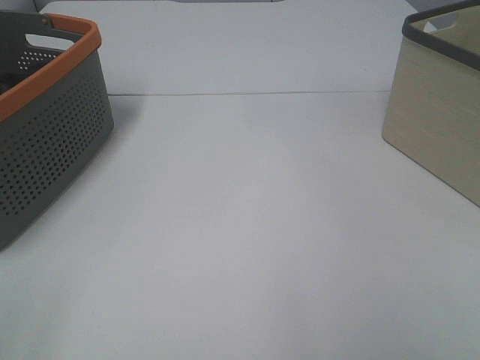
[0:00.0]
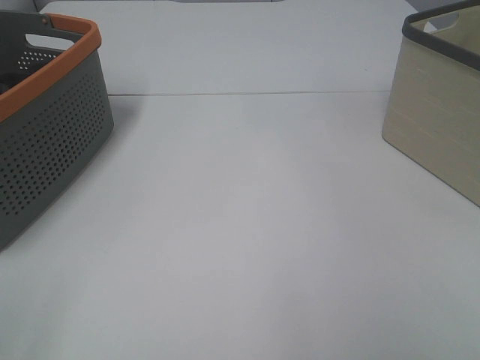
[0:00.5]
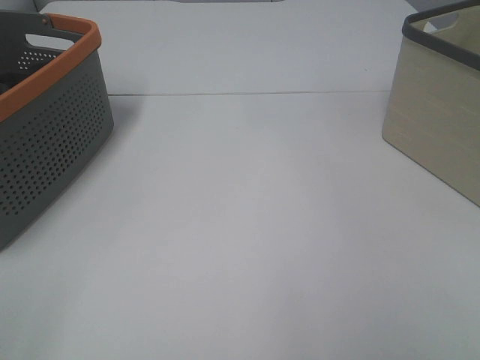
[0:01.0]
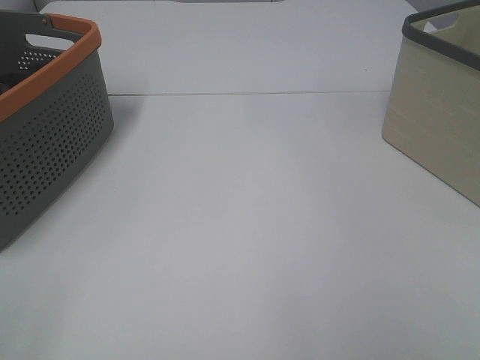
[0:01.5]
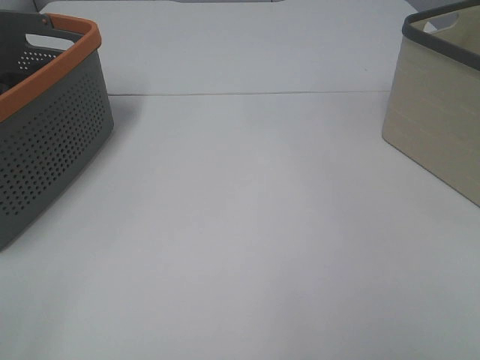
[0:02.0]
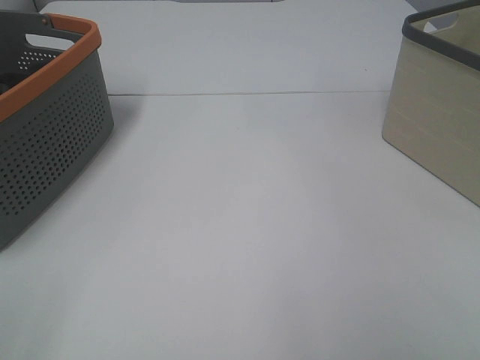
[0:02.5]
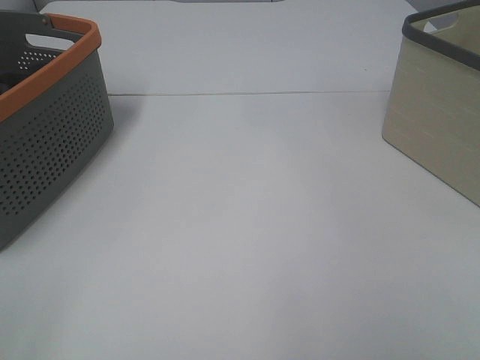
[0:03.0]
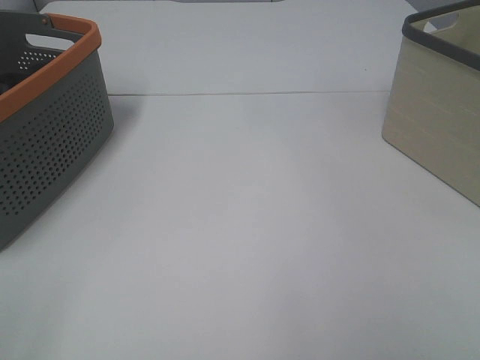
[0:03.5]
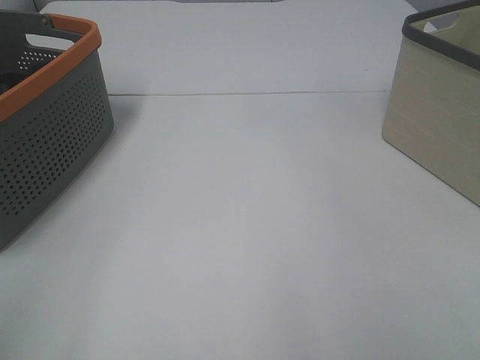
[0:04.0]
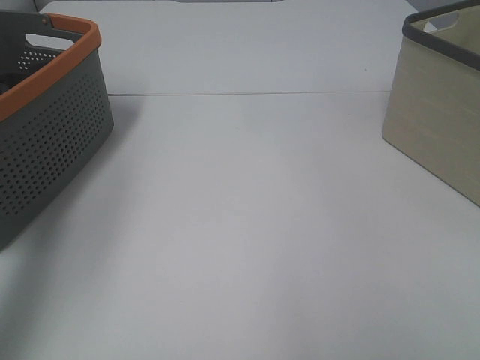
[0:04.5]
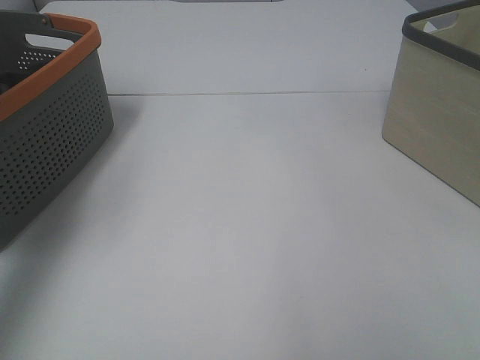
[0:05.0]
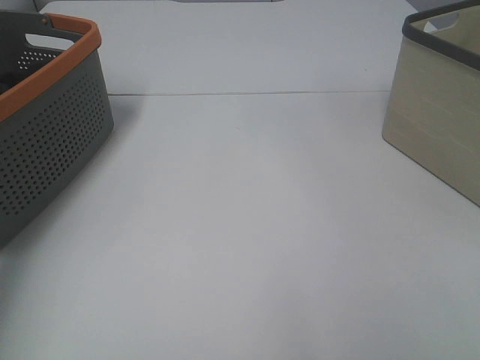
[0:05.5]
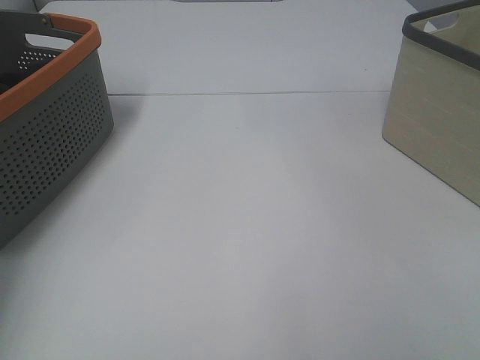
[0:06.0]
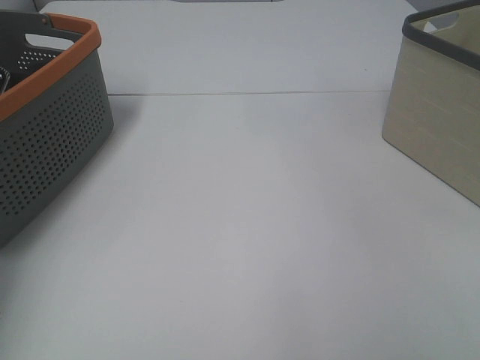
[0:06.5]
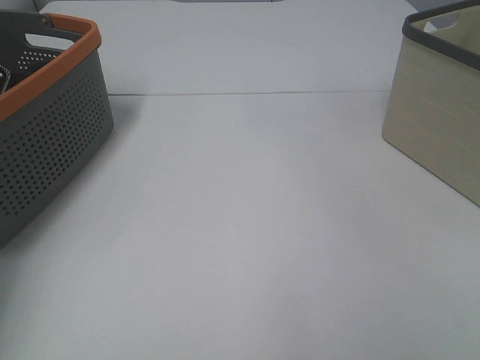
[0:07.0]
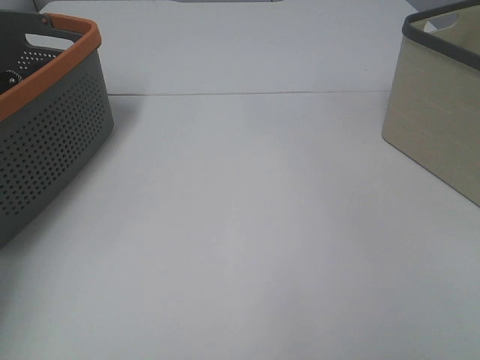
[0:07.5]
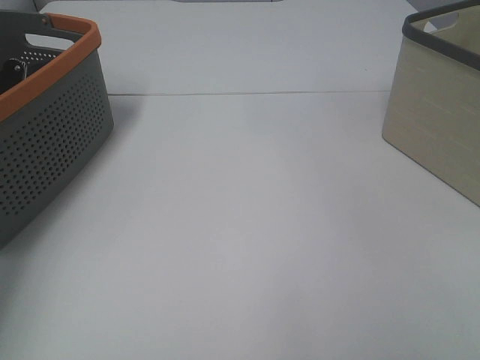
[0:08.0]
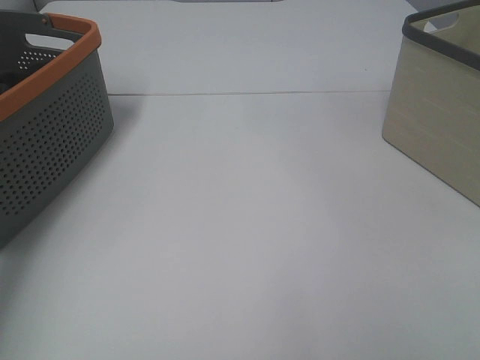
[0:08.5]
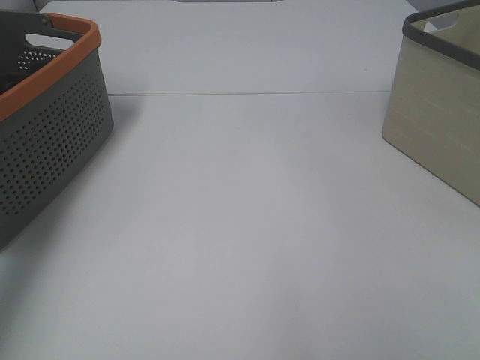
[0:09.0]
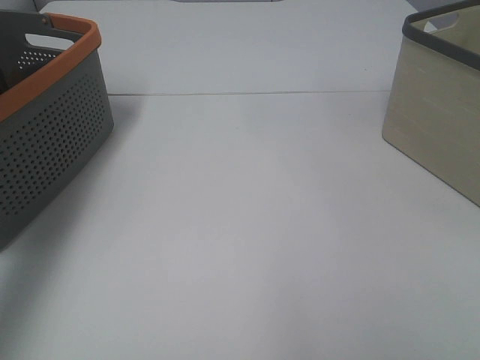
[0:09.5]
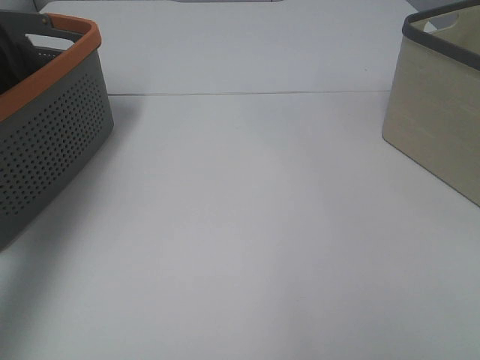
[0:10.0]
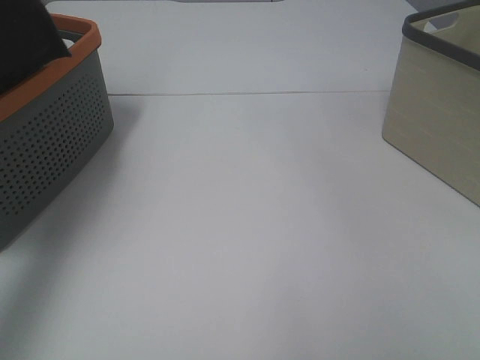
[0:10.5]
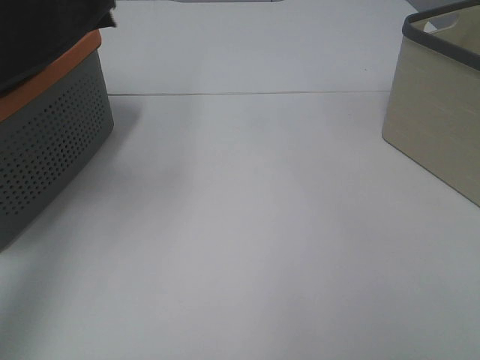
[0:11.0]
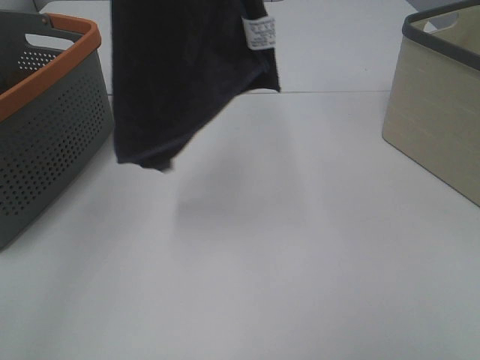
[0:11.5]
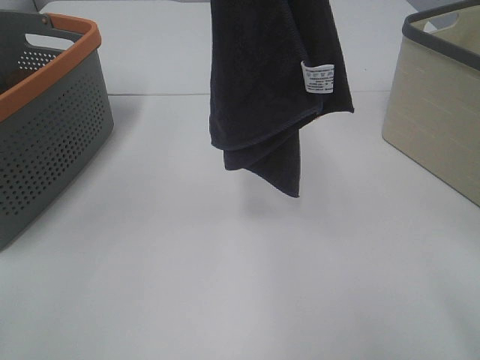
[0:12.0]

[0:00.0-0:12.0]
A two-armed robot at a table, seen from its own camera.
Task of the whole recording: Remove the towel and place it.
0:00.0 to 0:02.0: Both grippers stay put.
0:04.0 to 0:06.0: The left gripper shifts about 40 cm forward.
0:08.0 to 0:10.0: The left gripper goes approximately 30 cm upward.
0:10.0 to 0:12.0: The left gripper goes approximately 20 cm to the right. The right gripper moves forward, about 10 cm.

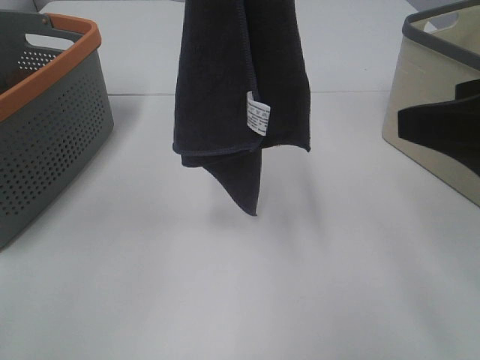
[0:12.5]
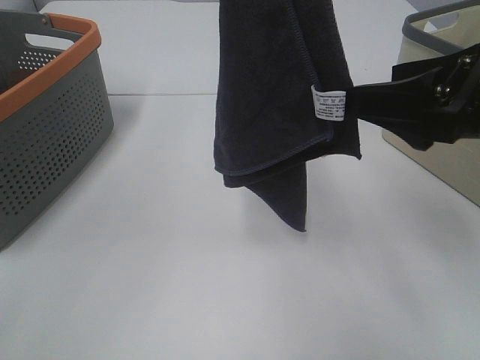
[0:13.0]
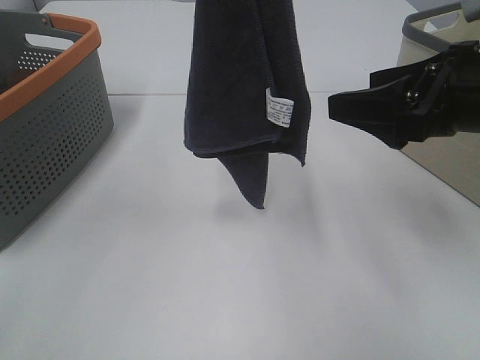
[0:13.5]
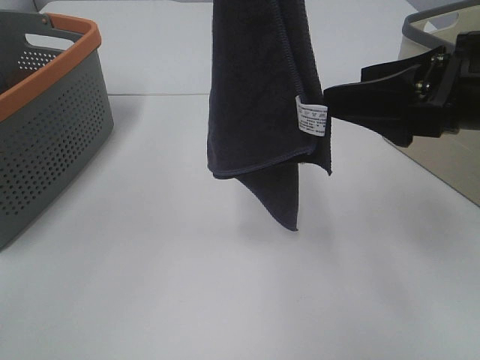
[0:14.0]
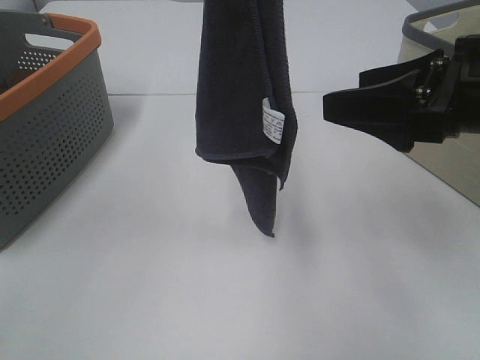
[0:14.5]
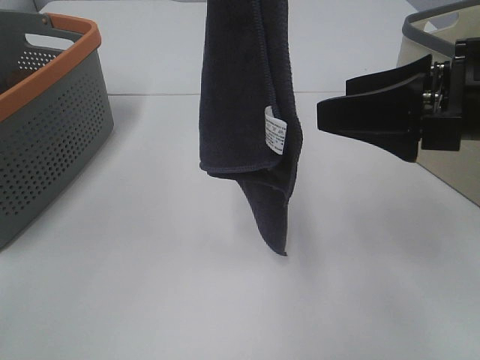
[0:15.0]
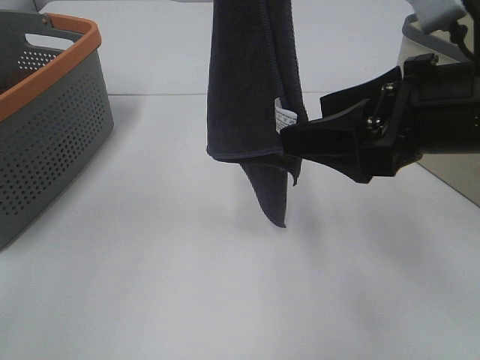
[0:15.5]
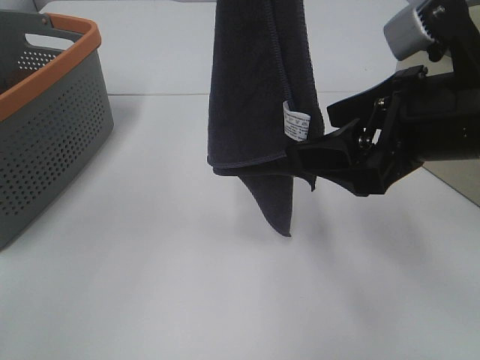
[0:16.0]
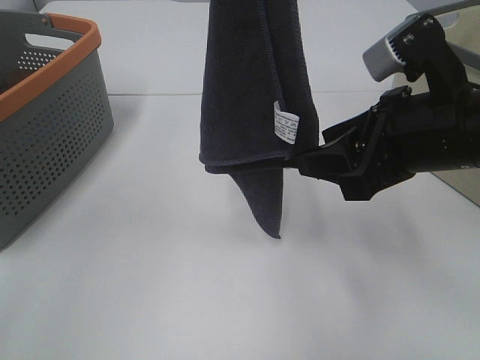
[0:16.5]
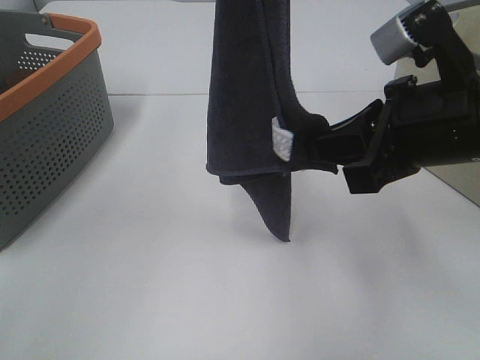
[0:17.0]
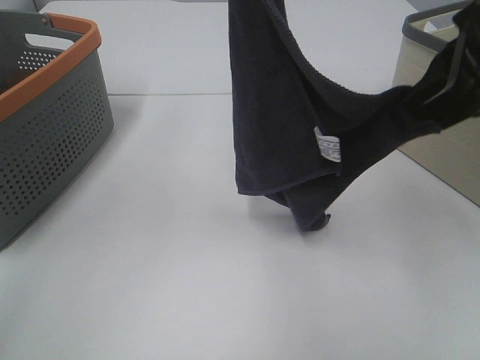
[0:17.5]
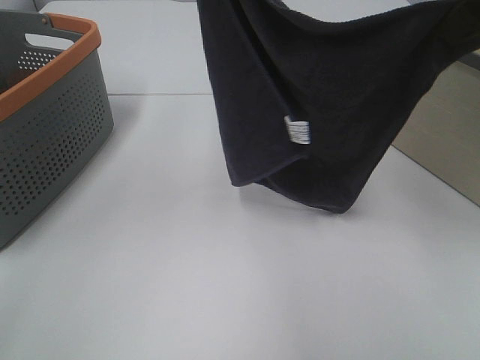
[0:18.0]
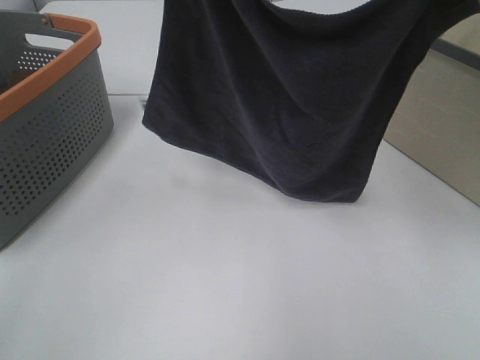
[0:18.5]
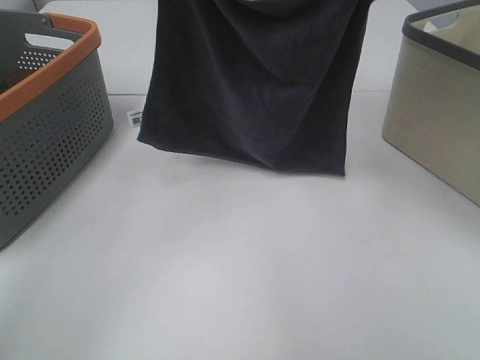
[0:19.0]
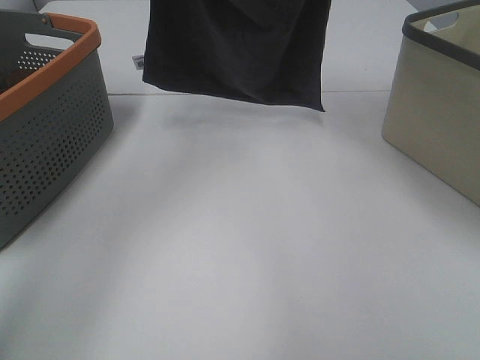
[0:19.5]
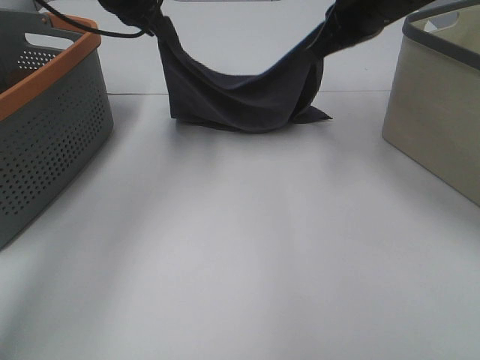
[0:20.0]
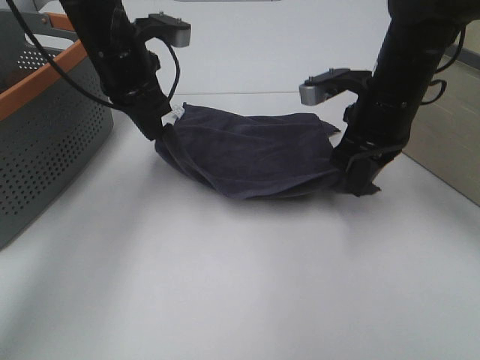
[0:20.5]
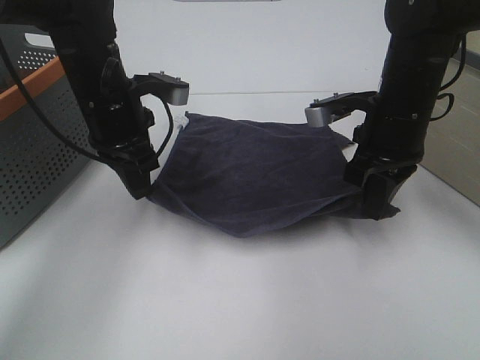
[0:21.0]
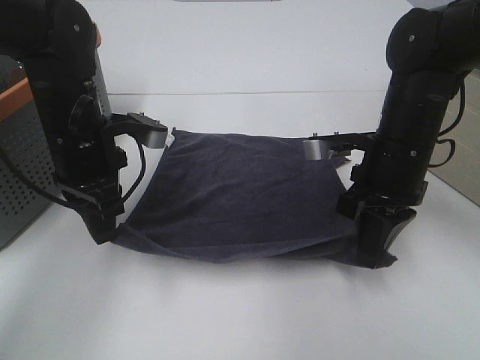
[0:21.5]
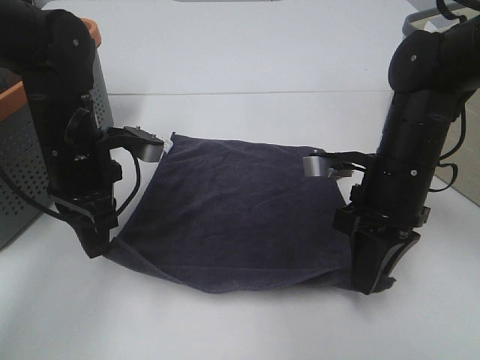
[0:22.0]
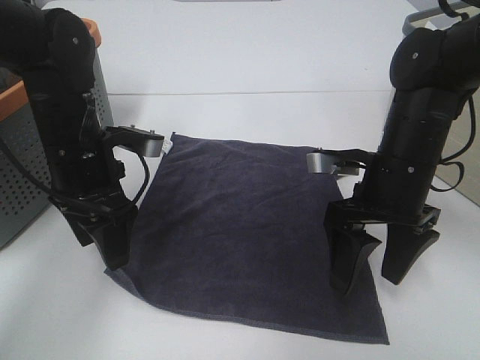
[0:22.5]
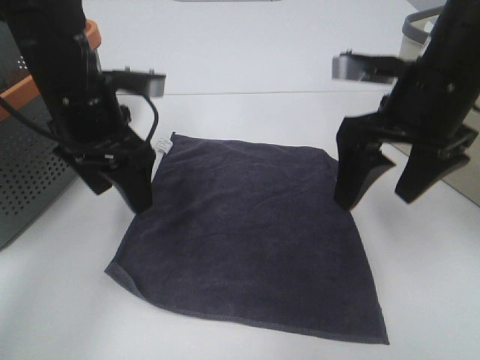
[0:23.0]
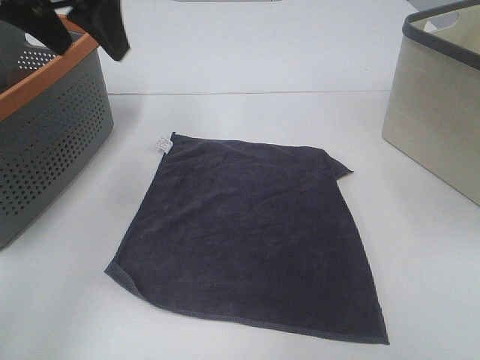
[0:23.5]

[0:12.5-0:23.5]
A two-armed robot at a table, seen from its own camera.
Task of the whole recording: Remove the towel and place it.
Step, 0:12.5 to 0:15.0: Right hand: grab a corner of the grey towel and straighten it.
Step, 0:15.5 to 0:17.5: Right hand: spread the grey towel flat on the table.
Step, 0:15.5 to 0:18.0: Left hand: spread the grey towel flat on the table.
0:12.5 to 0:14.5: The right gripper is displaced forward by about 5 cm.
0:14.5 to 0:16.0: There are only small adjustments of the grippers.
0:16.0 to 0:18.0: The right gripper moves upward, approximately 15 cm, and closes. The left gripper shifts by roughly 5 cm.
0:18.0 to 0:20.0: The left gripper moves downward and forward, some 20 cm, while the right gripper travels forward and downward by about 20 cm.
0:20.0 to 0:21.5: The two grippers go roughly 15 cm downward and backward.
0:21.5 to 0:23.5: The two grippers go about 25 cm upward. The left gripper opens its fingers; the right gripper opens its fingers.

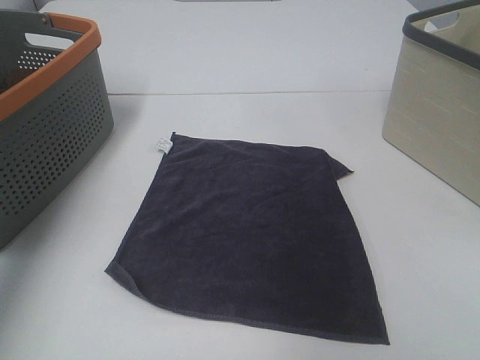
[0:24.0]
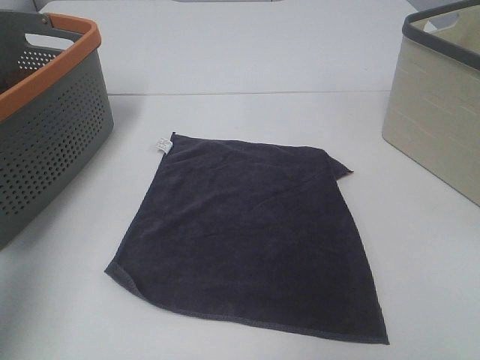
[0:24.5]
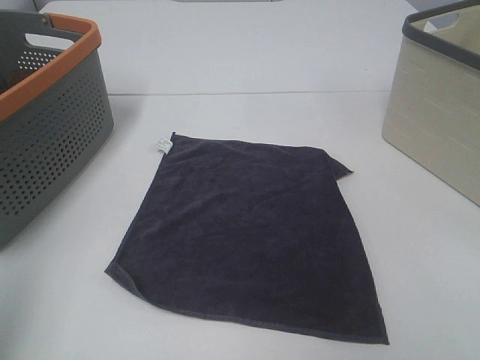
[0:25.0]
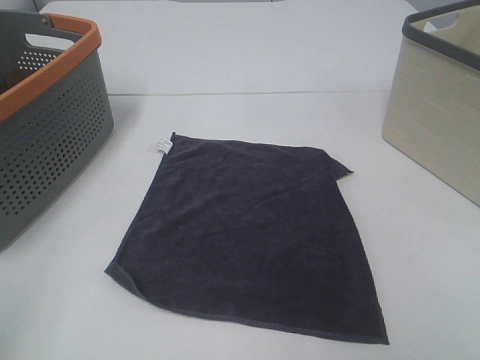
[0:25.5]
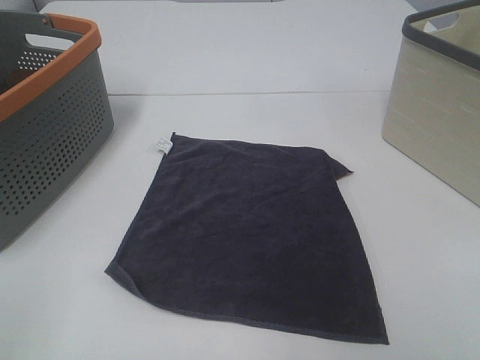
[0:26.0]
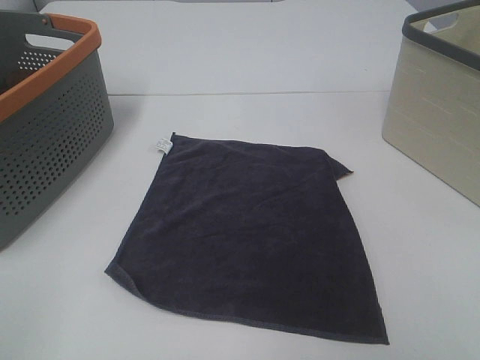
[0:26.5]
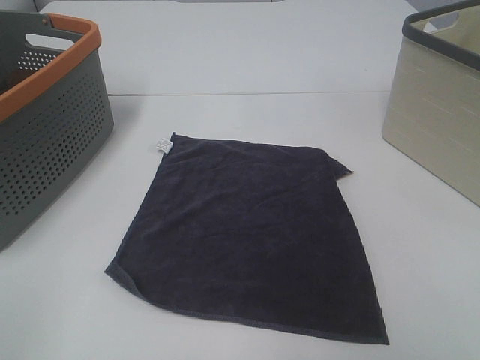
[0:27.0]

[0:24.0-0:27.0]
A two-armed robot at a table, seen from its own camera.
Task of the whole recording: Remove the towel and place it.
0:24.0 to 0:25.5: The left gripper goes roughly 30 cm backward.
